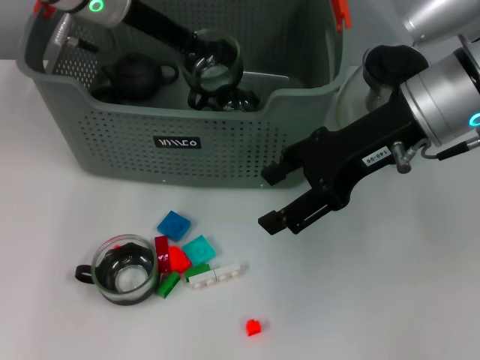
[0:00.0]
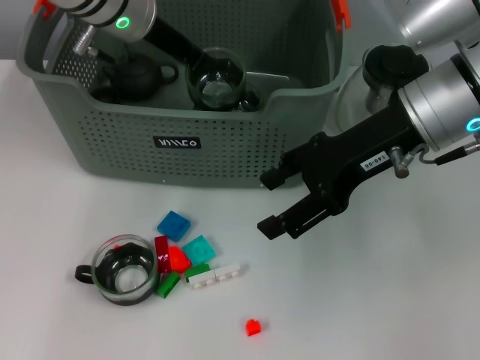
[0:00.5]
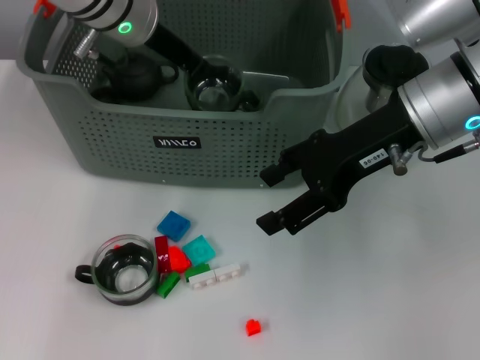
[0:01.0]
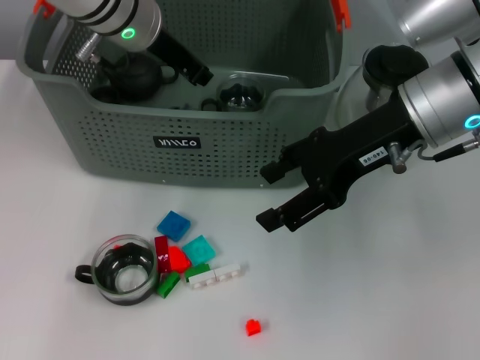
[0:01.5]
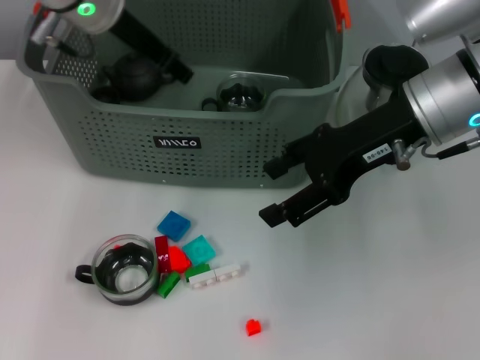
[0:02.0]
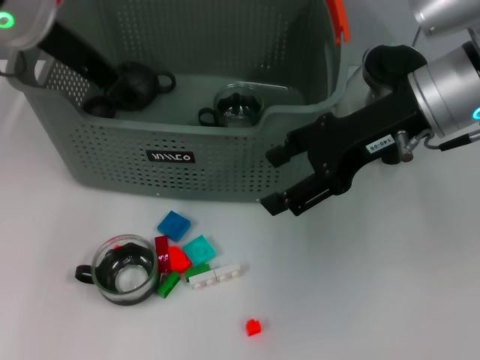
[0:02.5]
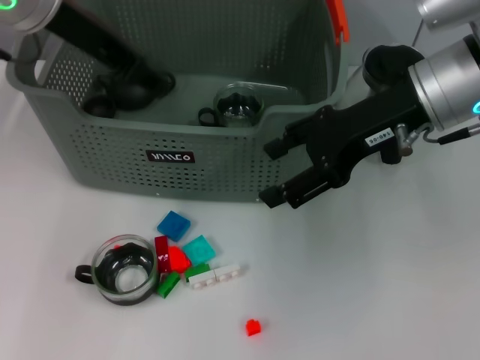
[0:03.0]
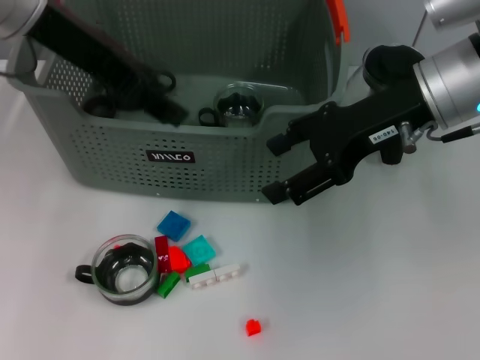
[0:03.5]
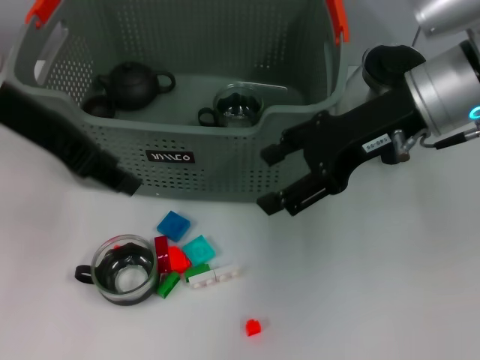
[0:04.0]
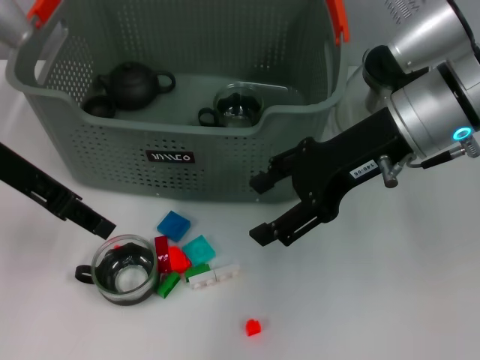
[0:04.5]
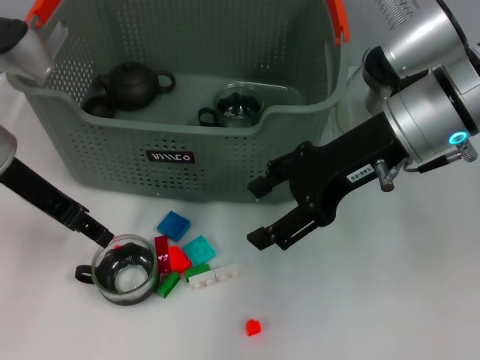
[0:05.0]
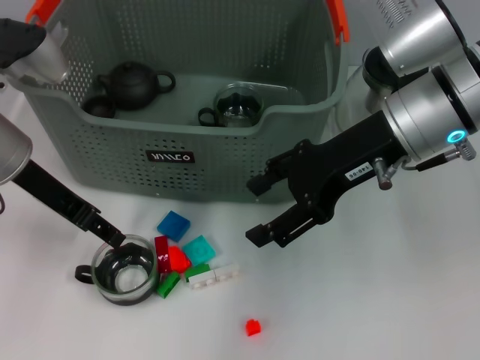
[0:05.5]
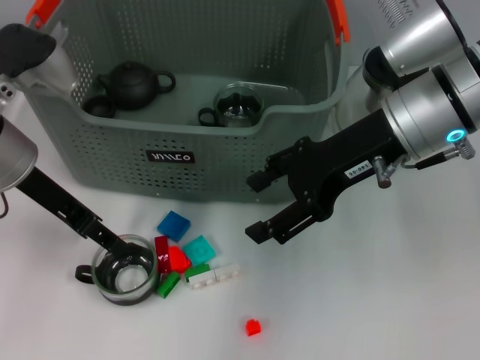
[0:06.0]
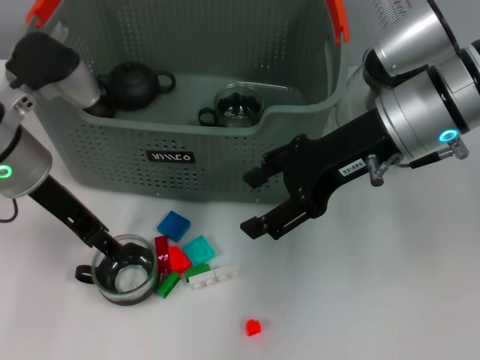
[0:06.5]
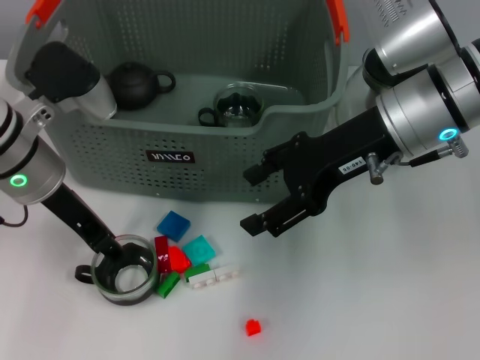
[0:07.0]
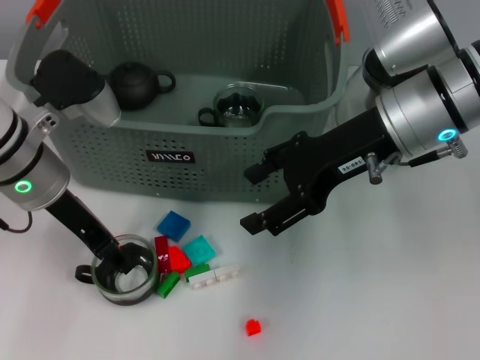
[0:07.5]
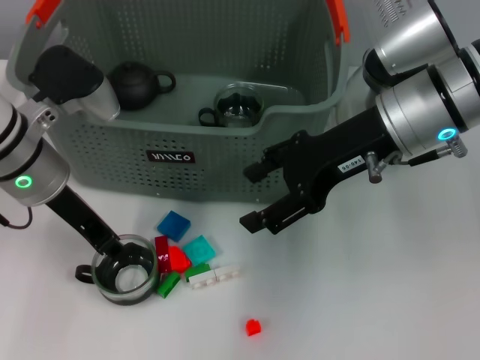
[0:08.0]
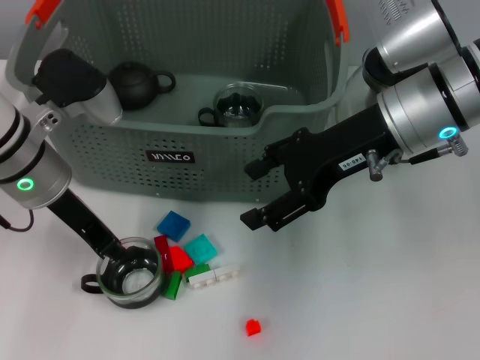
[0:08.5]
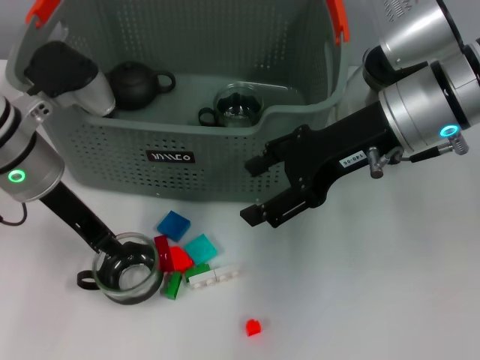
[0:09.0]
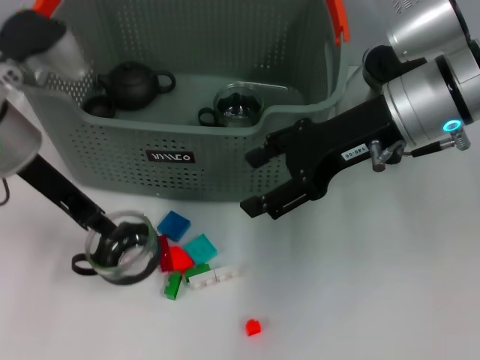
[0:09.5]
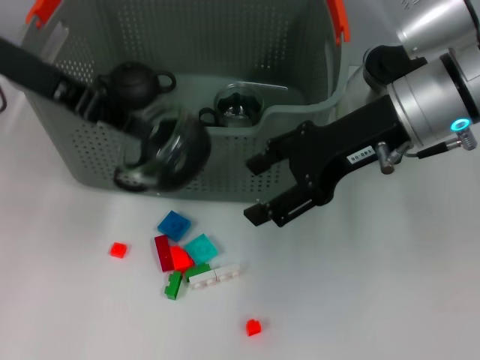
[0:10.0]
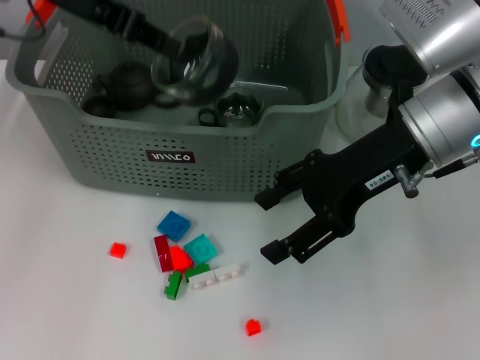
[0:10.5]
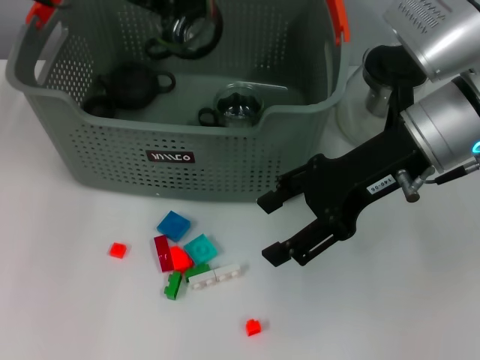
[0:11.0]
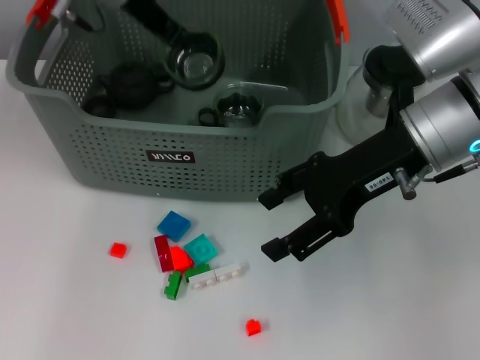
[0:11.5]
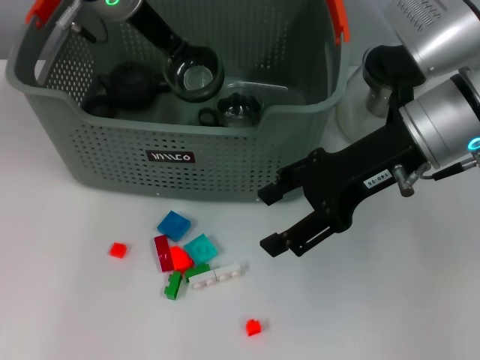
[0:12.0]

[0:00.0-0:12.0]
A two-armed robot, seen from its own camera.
Task of the whole recording: pick up the teacup on the table and place it into the storage bin, pick up the block on the table and place it into the storage bin.
Step, 2.0 to 9.0 s: Grasp the cup with left gripper.
0.0 to 2.0 s: The left gripper opens its fingers.
2.0 to 4.0 s: The left gripper is displaced backward and to the left by about 15 cm.
4.0 to 6.0 s: The left gripper goes some 10 cm downward.
6.0 to 8.0 s: The grippers make only small movements.
8.0 to 10.0 s: The left gripper goes roughly 10 cm upward, and closes its fingers.
10.0 to 12.0 s: The left gripper travels to the right and forward by some 15 cm.

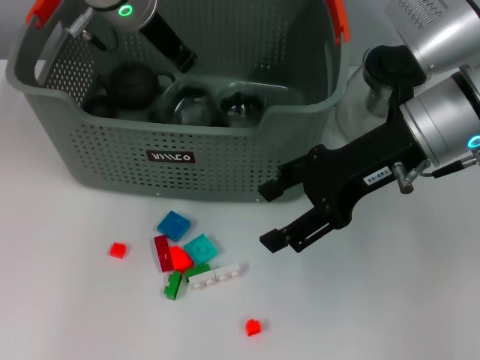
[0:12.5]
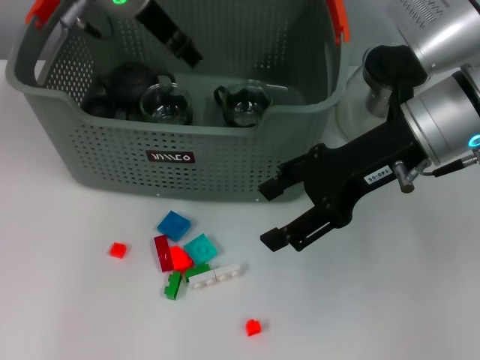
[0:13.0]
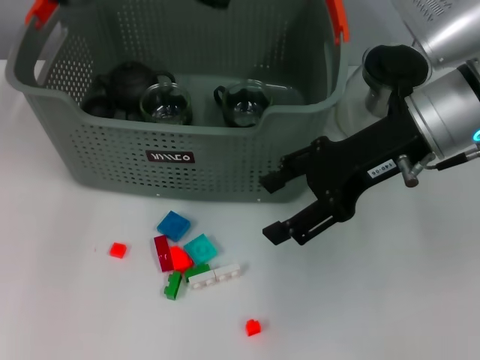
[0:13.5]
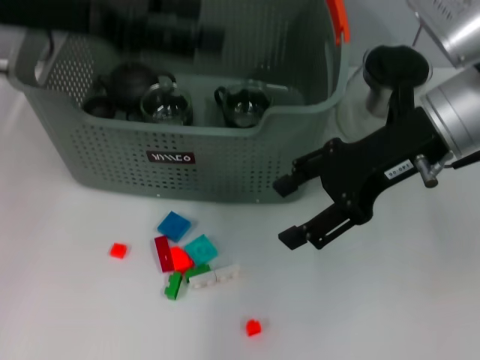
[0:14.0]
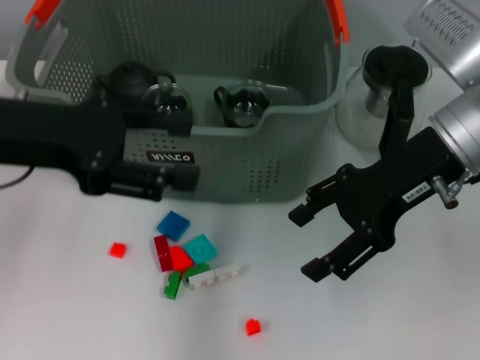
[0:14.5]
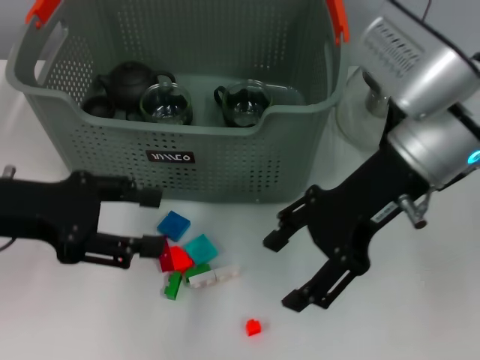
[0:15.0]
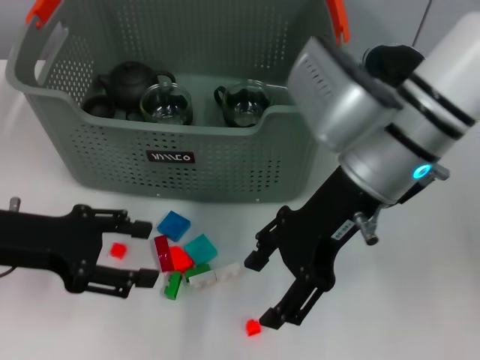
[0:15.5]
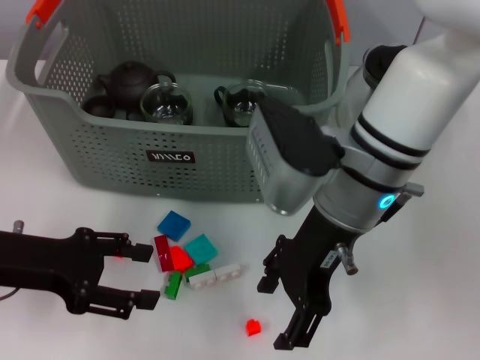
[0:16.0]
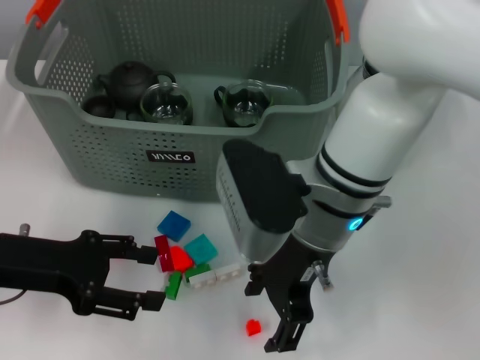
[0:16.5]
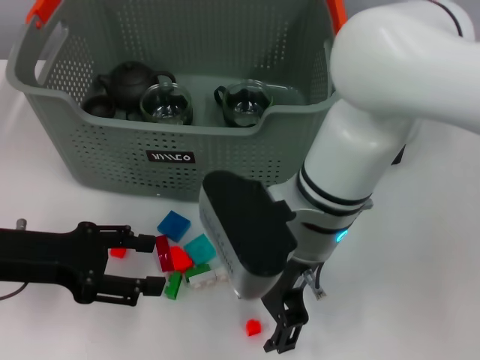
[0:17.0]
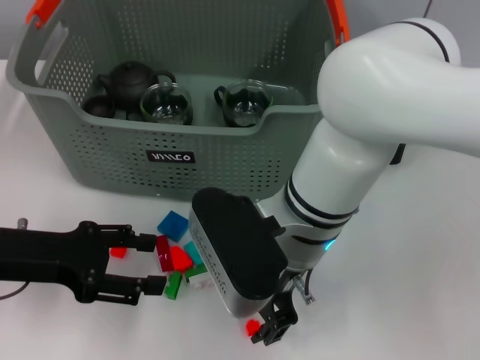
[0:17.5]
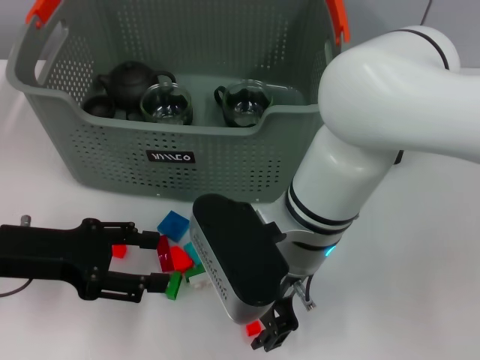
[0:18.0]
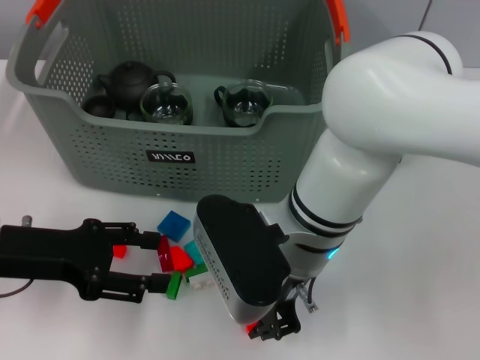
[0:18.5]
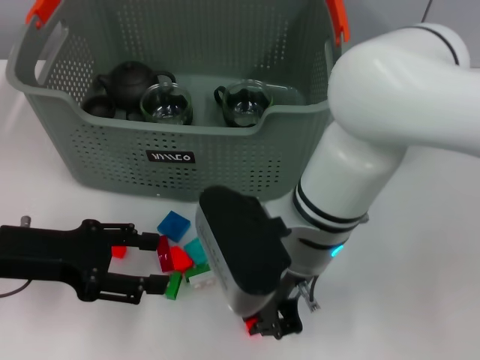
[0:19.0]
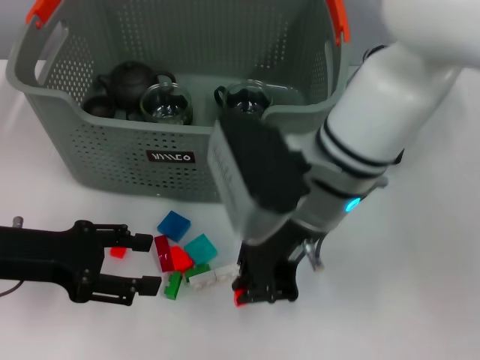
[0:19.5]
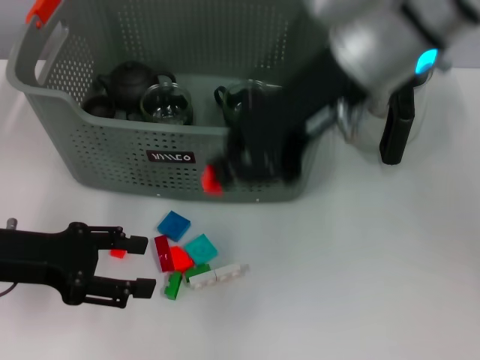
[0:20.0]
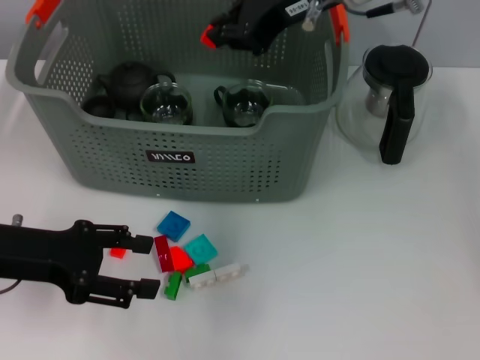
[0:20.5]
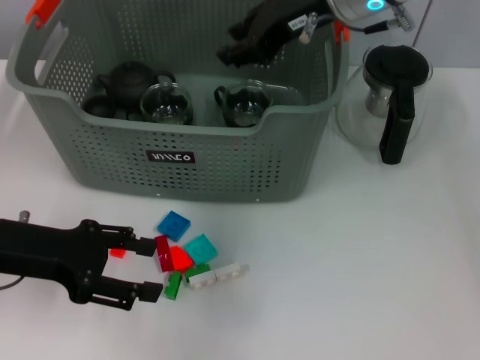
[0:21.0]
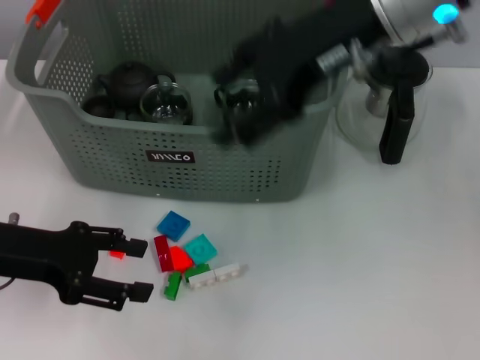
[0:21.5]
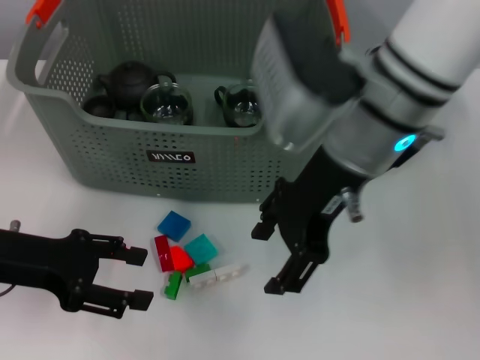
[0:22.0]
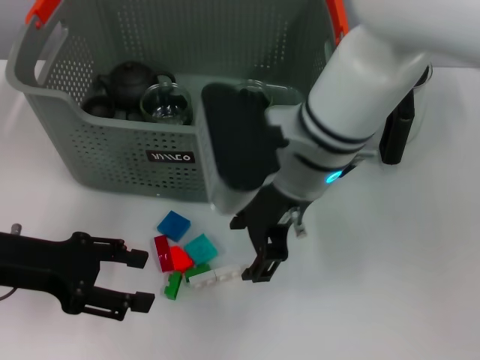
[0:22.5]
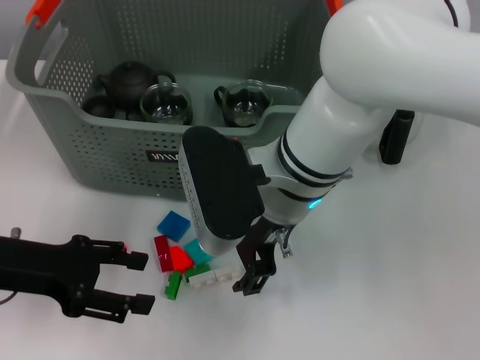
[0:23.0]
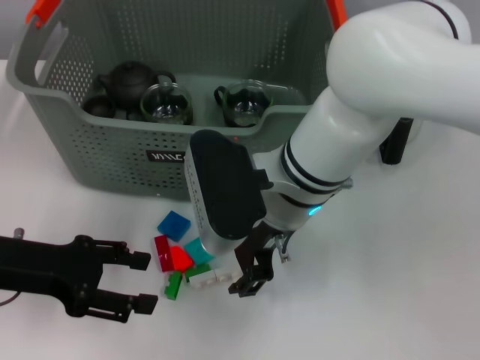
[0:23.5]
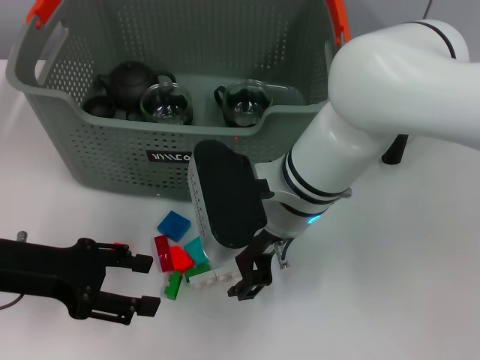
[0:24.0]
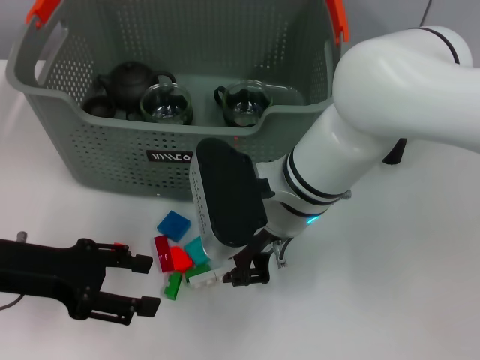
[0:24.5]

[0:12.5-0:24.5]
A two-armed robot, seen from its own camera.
Task of the whole recording: pick up the teacup on the table and place it into the storage bin, pick up the block on the table and place it into the storage bin.
Step, 13.0 to 19.5 s: Grasp the orange block with right gripper.
Step, 20.0 to 21.0 s: Place the orange block in the storage box with right gripper.
12.5 to 14.5 s: The left gripper travels backward and to the left by some 20 cm, and opens.
14.5 to 16.5 s: The left gripper moves downward, some 10 cm. Meanwhile the right gripper heads to the left and downward, covering roughly 15 cm.
16.5 to 18.5 s: The right gripper closes its fingers.
18.5 to 20.5 s: The right gripper shifts approximately 20 cm upward, forward and to the right.
20.5 to 22.5 s: The right gripper heads downward, backward and to the left, covering approximately 15 cm, and opens.
22.5 to 24.5 s: The right gripper shifts approximately 5 cm downward, and closes.

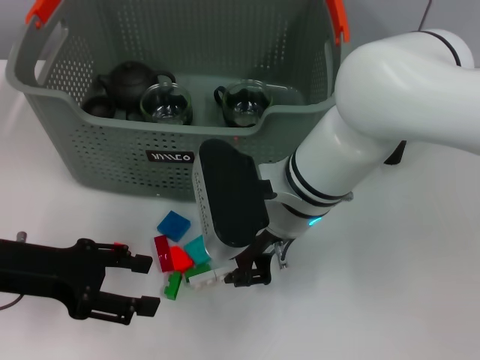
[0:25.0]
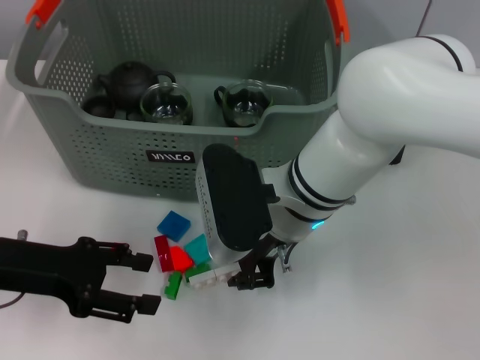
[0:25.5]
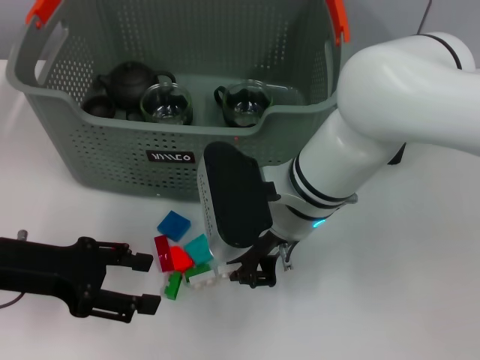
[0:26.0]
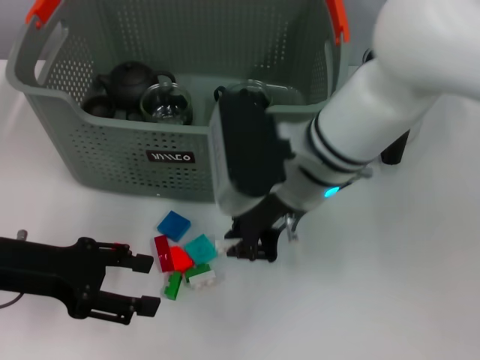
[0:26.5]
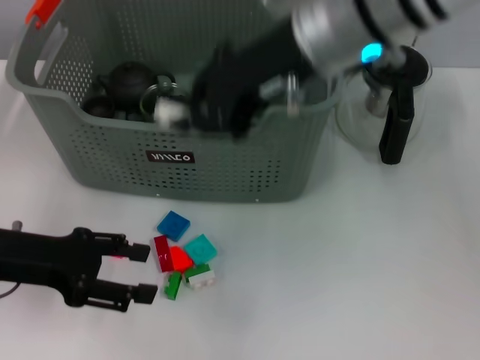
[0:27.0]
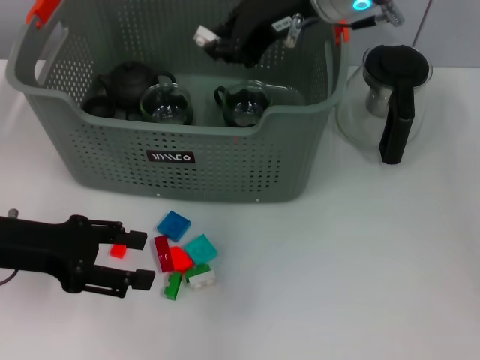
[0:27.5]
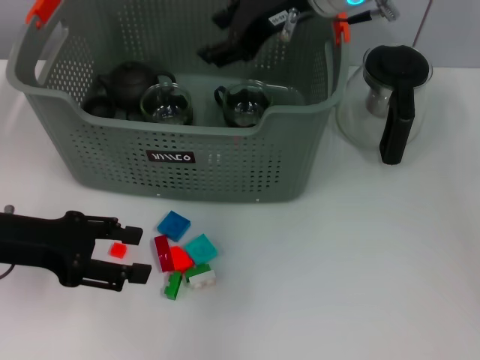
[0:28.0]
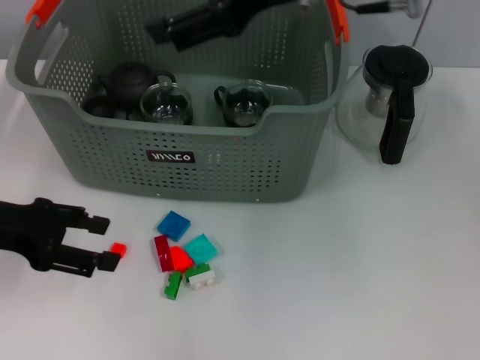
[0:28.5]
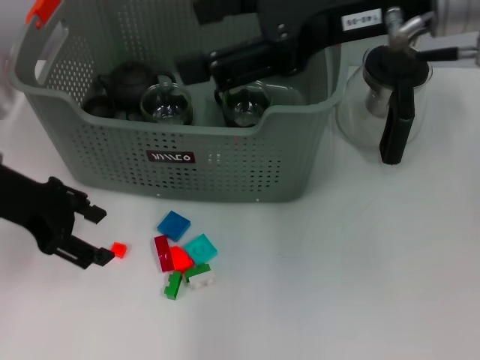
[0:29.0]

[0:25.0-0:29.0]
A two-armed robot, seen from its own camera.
Task of the whole recording: pick up the teacup on the table and place it into the storage bin, pick up the block on the table and place it into the storage bin.
Step, 26.5 to 27.5 s: Place the white block in the storage box with right gripper.
25.0 to 27.0 s: The right gripper travels upward by some 15 cm.
27.0 to 29.0 s: The right gripper shifts about 5 cm to the right, moves about 5 cm forward and comes back, and opens. The left gripper moves upward and forward, approximately 10 cm.
